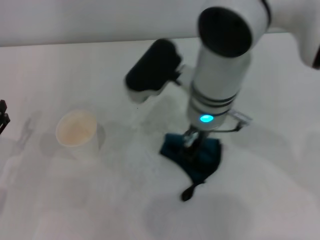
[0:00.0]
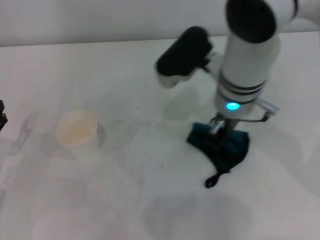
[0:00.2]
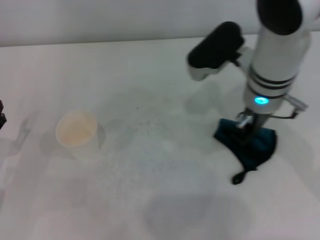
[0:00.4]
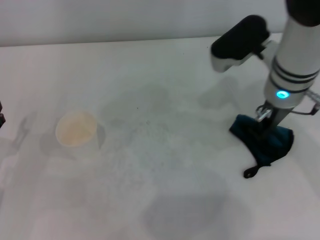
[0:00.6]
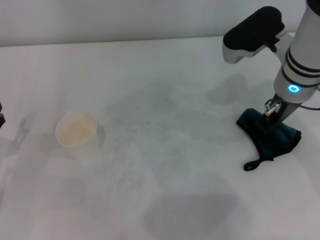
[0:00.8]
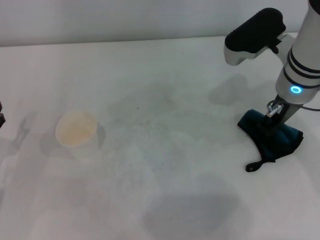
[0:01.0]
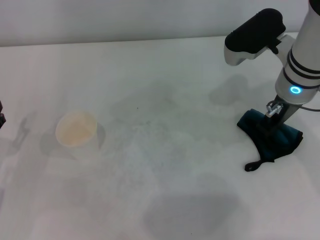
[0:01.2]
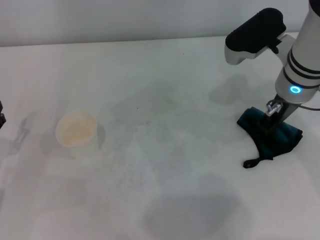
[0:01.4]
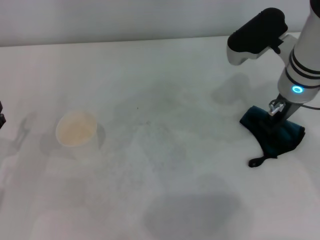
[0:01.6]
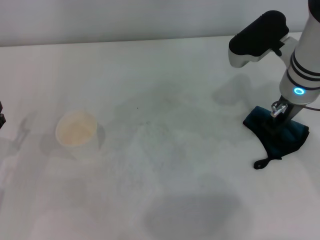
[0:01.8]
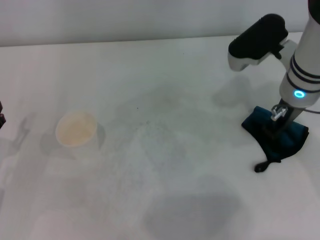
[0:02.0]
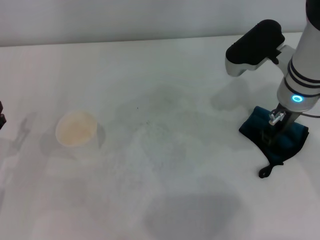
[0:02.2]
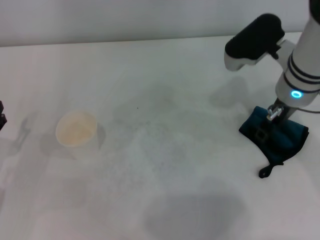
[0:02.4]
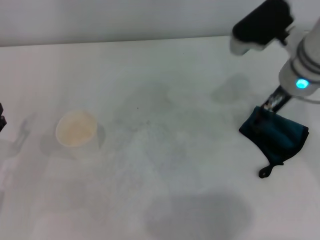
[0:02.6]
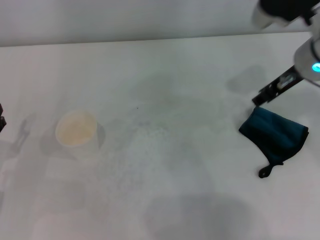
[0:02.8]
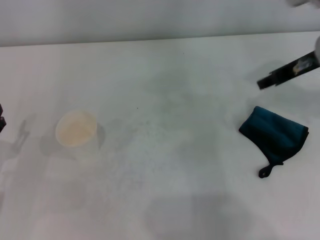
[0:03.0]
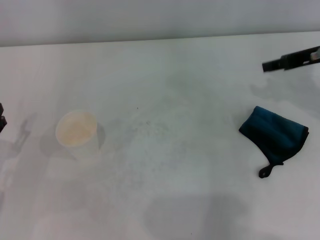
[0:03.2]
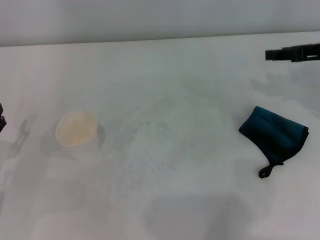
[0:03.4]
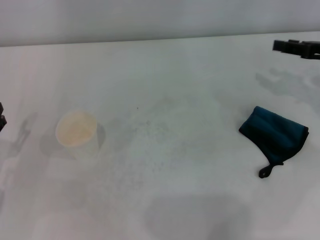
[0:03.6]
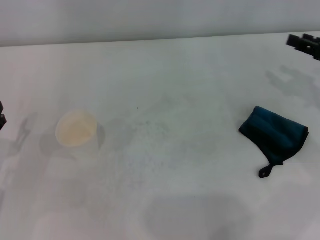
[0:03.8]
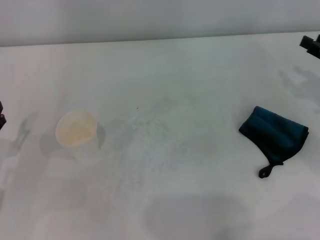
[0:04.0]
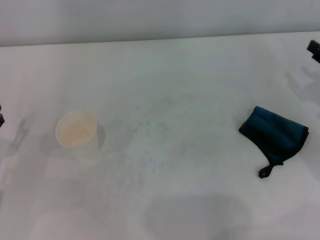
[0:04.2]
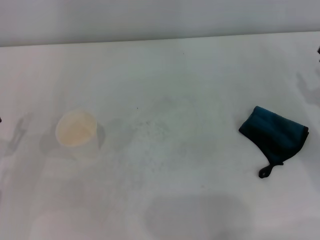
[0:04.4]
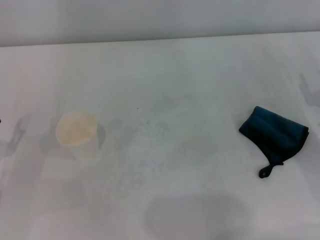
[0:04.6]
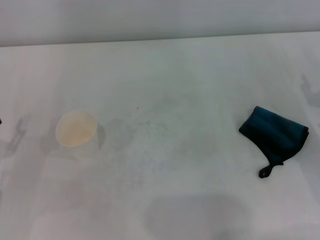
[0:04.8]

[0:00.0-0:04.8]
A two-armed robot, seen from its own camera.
Step, 0:00.6 to 0:02.2: Place the rag on the table with the right gripper.
0:00.0 to 0:01.6: The right gripper shifts approximately 15 cm to the right.
0:01.6 to 0:03.2: The right gripper shifts approximately 10 cm to the right, and opens its fingers.
0:03.2 to 0:04.8: The right gripper moves downward and backward, approximately 15 cm.

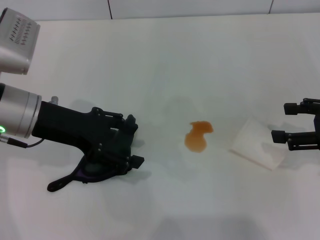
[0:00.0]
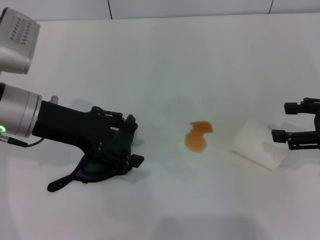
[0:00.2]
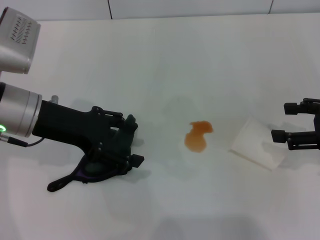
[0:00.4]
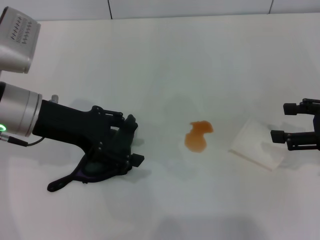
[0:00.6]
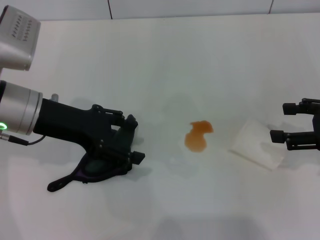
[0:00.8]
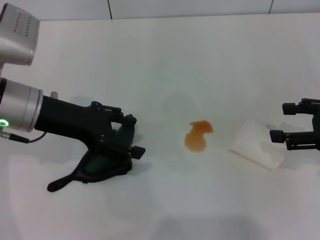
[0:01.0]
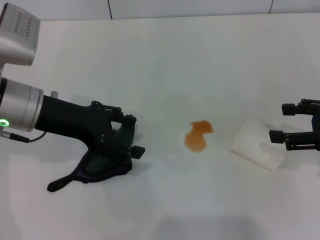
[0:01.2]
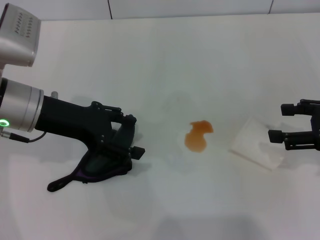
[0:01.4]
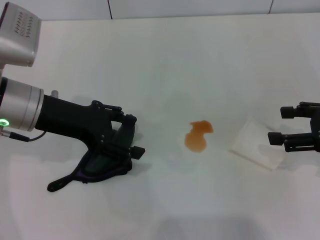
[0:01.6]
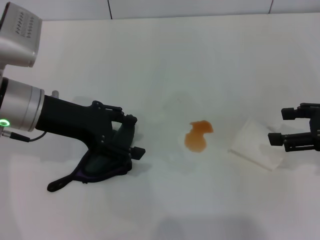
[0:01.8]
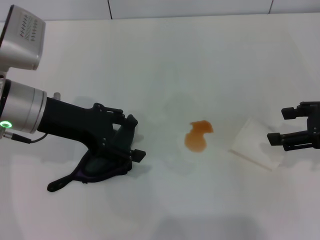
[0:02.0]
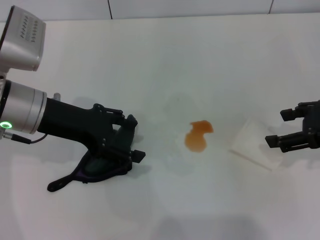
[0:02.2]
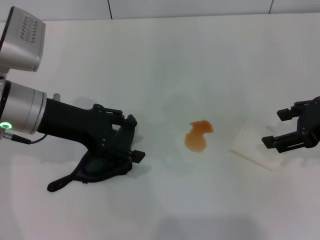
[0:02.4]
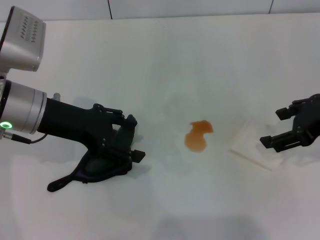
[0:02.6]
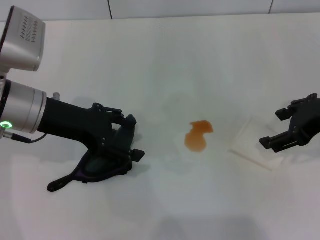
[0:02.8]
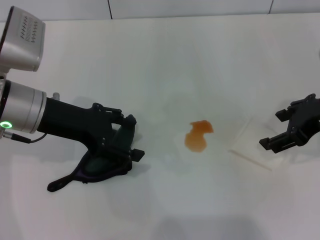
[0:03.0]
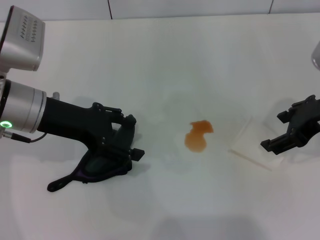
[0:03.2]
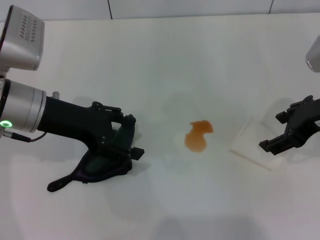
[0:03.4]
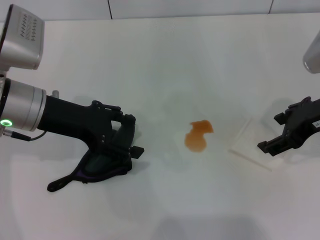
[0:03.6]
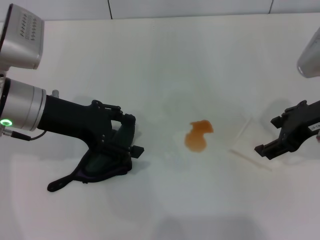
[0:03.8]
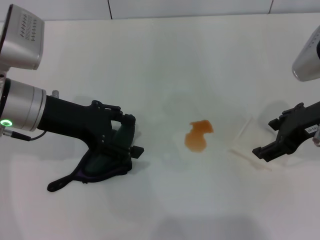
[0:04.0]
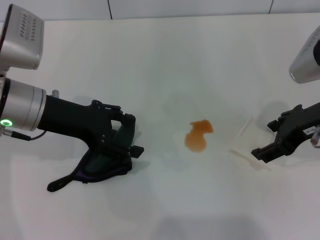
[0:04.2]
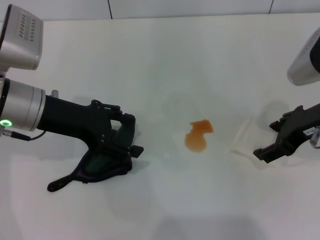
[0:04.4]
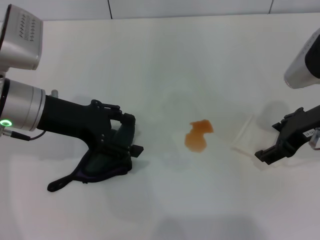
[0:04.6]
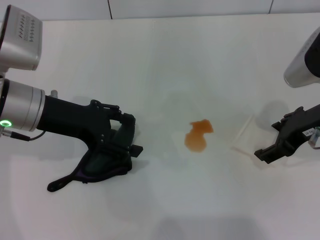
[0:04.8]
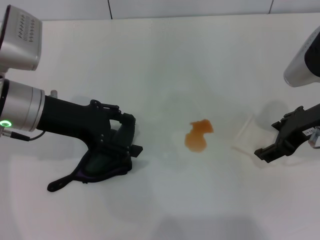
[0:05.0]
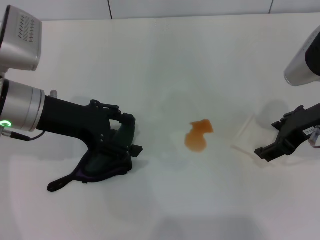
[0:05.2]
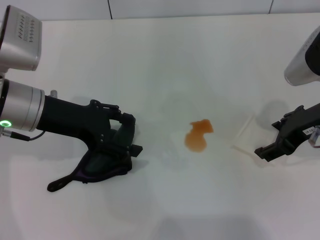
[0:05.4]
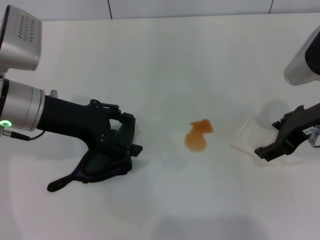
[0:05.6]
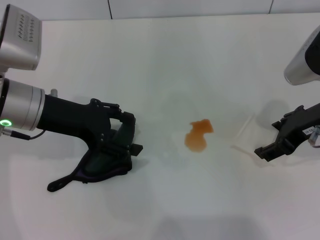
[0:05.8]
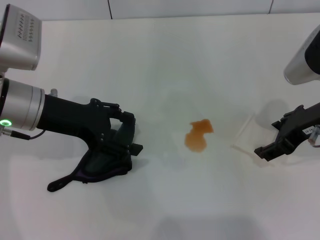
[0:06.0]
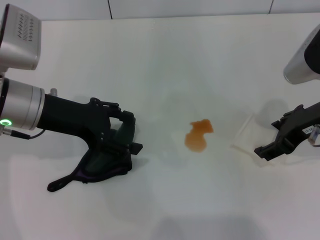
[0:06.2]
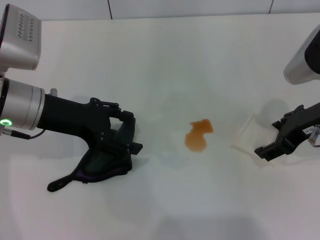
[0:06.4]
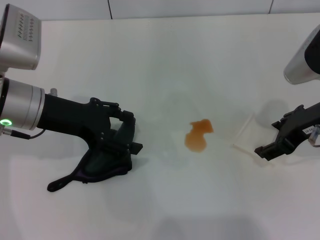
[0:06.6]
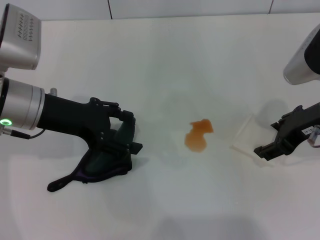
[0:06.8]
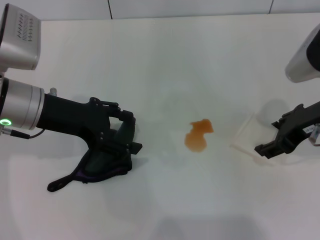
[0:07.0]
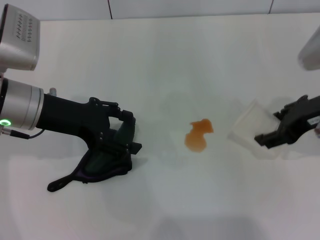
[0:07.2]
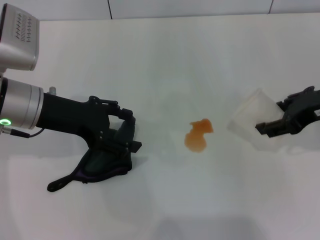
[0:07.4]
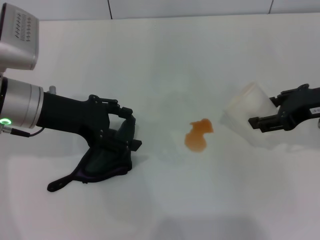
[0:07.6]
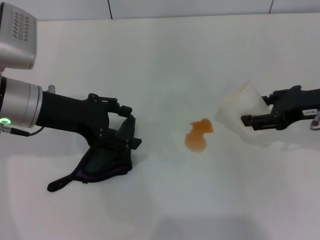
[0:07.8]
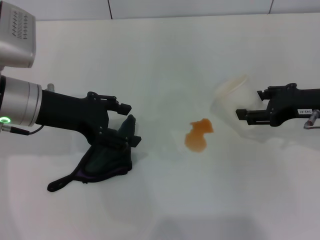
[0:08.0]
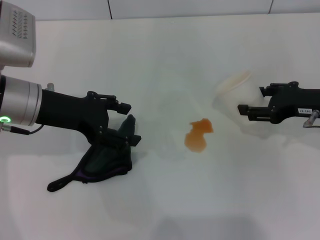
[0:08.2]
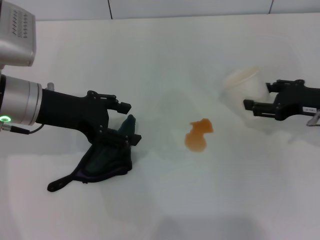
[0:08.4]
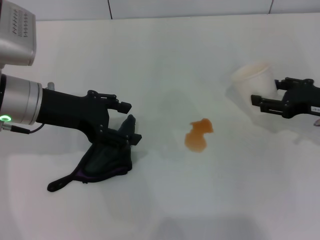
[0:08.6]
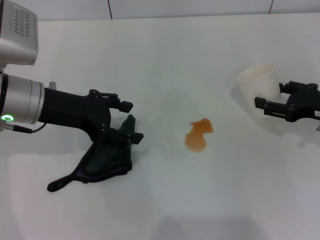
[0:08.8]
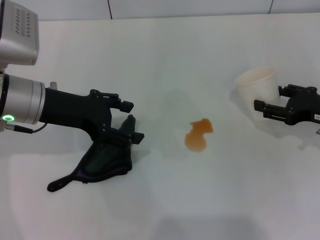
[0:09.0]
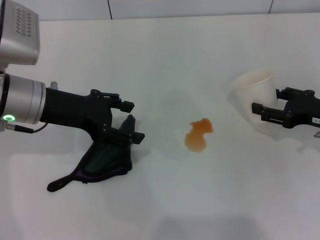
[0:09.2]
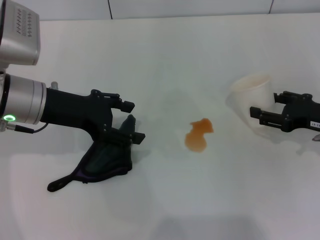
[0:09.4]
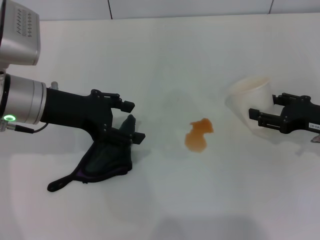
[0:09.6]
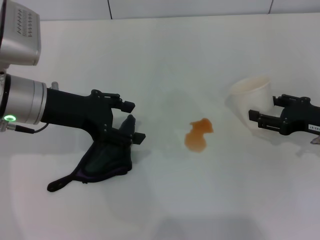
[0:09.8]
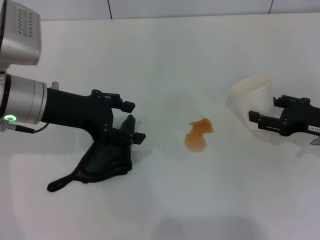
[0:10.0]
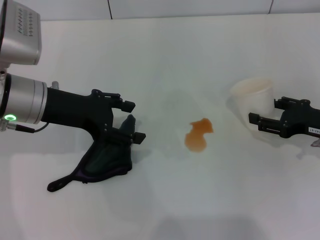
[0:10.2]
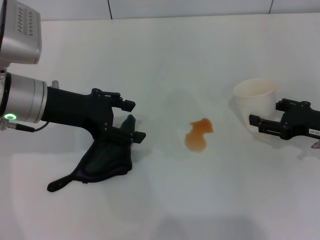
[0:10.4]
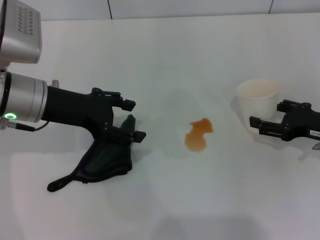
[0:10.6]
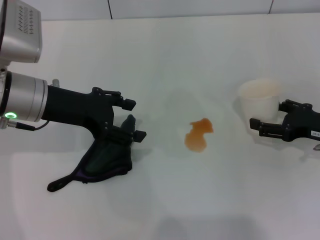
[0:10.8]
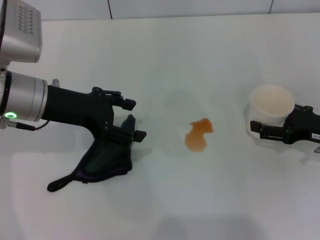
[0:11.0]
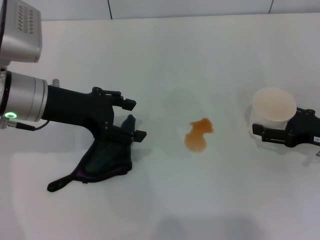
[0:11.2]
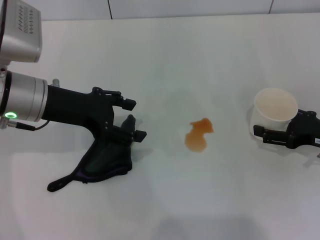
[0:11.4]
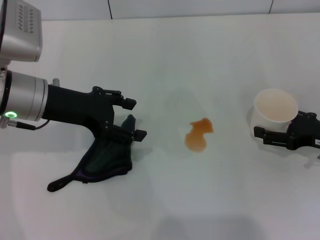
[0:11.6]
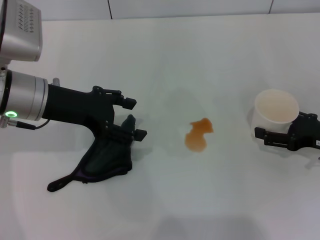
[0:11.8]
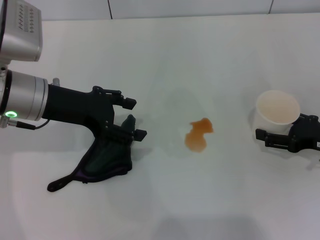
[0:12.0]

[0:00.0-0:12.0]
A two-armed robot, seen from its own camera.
Step, 0:00.0 to 0:06.6: Grasp the paper cup with the right gripper.
0:00.0 to 0:01.6: Both grippers stay put.
0:01.6 to 0:03.0: The right gripper moves to the left, some 5 cm.
0:03.0 to 0:04.4: There are only small adjustments of the grippers.
0:04.4 to 0:06.0: Both grippers stay about where they are.
0:06.0 to 0:07.6: The right gripper closes up.
0:07.6 to 0:09.0: The right gripper moves downward and to the right, approximately 10 cm.
0:09.0 to 0:10.4: The grippers stay close to where they were, moving slightly.
0:10.4 to 0:12.0: The right gripper opens up.

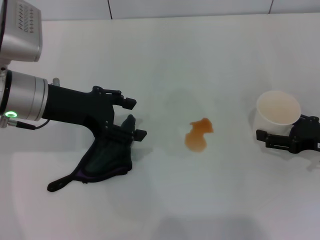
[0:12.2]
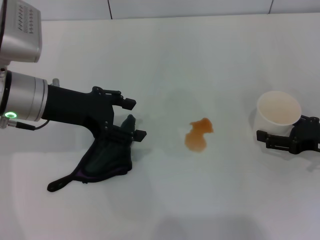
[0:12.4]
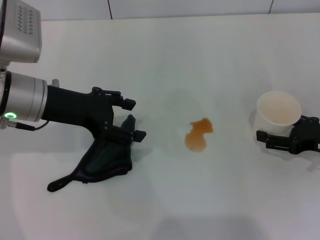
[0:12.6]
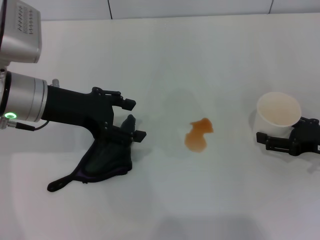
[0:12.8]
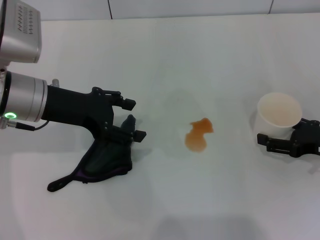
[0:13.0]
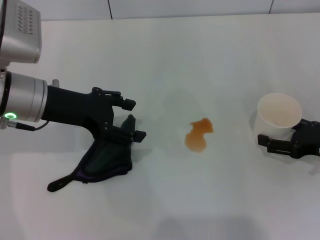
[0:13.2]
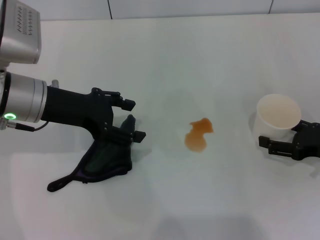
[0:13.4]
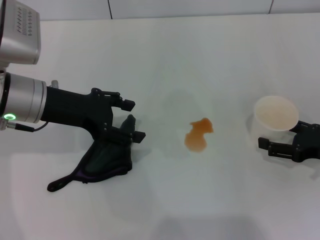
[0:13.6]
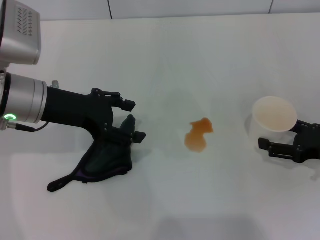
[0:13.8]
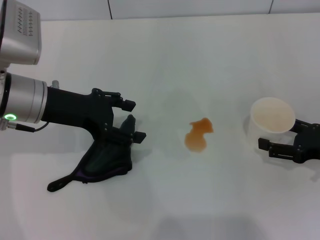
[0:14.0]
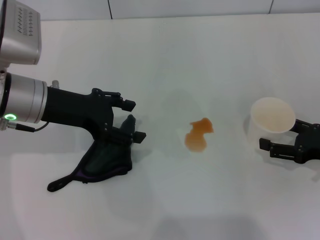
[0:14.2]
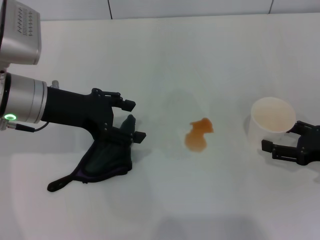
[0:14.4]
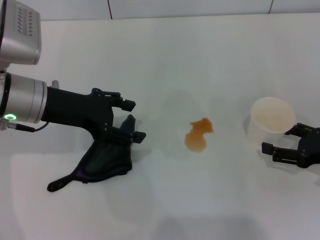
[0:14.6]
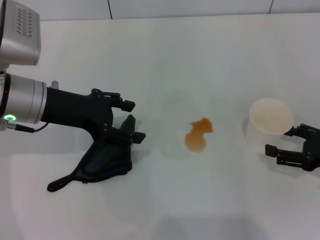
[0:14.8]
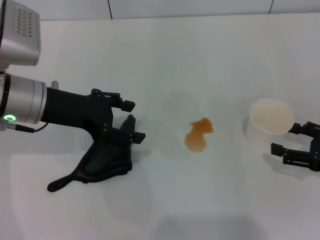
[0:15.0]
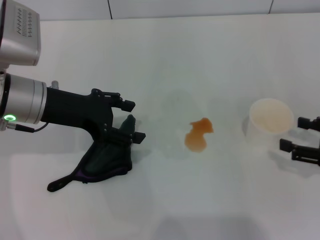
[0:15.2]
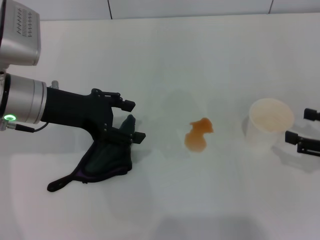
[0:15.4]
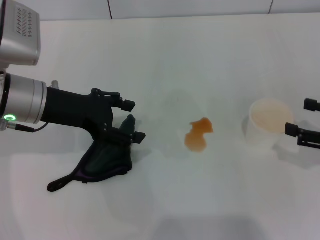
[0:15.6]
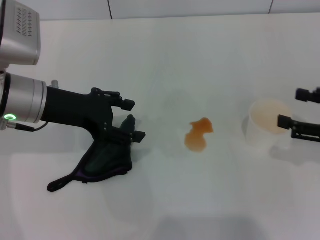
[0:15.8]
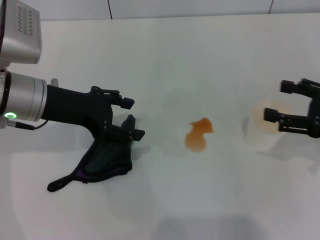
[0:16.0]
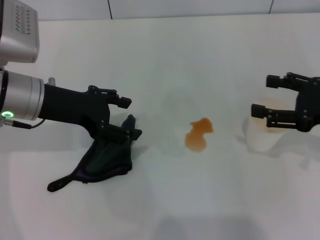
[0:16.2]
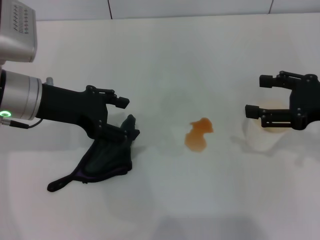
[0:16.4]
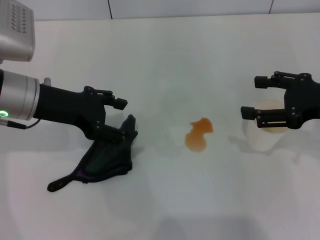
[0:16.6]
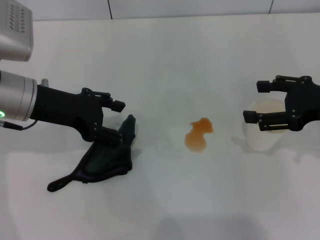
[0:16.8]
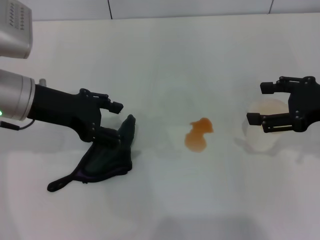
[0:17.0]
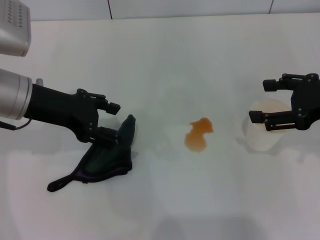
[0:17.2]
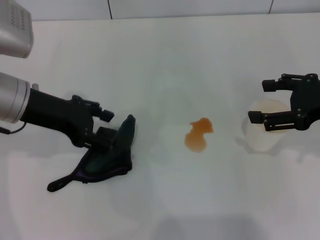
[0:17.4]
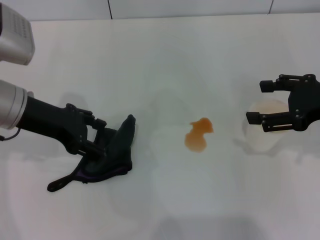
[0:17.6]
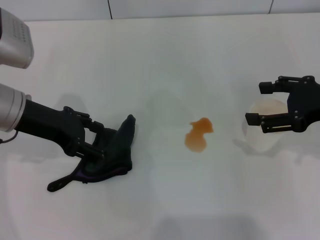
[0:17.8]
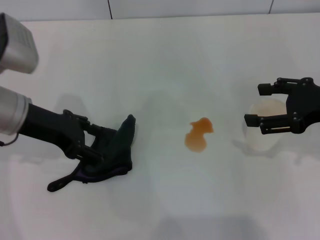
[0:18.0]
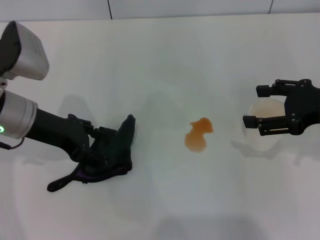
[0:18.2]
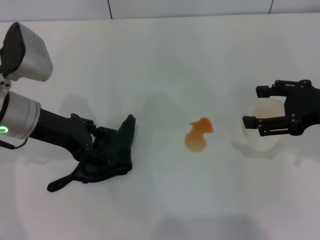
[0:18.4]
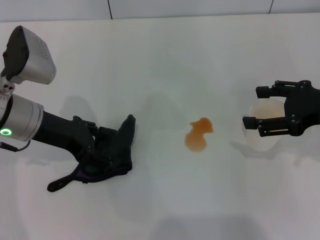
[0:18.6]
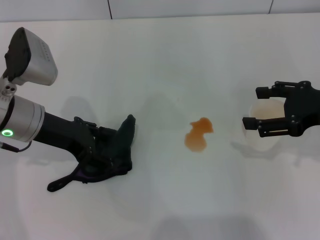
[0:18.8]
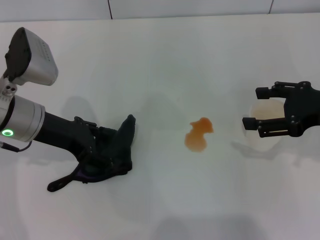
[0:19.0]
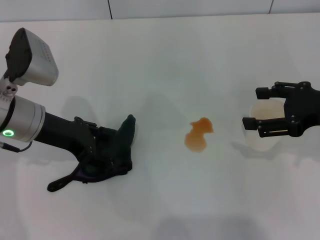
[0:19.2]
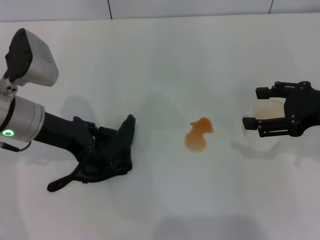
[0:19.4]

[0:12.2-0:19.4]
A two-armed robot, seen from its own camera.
Step, 0:12.2 to 0:15.0: Stand the paper cup upright with the right gripper.
0:12.2 to 0:13.6: Both grippers stay about where they are.
0:13.6 to 0:15.0: The grippers move only a little.
0:15.0 to 0:16.6: The right gripper heads upward, covering some 10 cm.
0:16.6 to 0:19.4: There are only small adjustments of the grippers.
